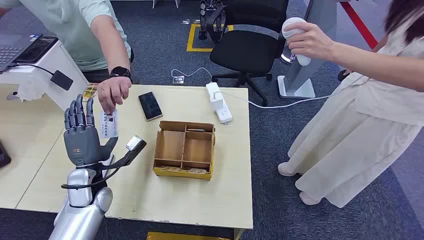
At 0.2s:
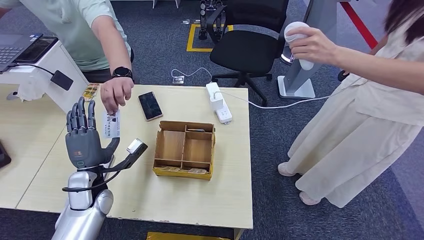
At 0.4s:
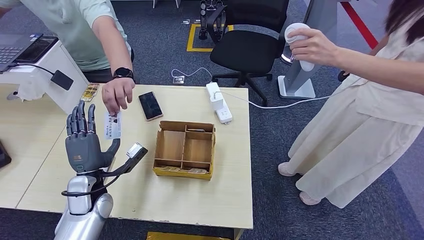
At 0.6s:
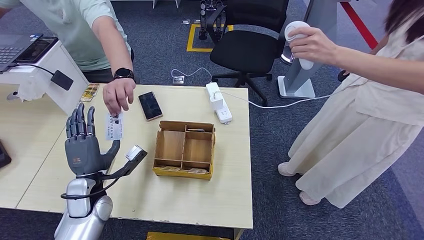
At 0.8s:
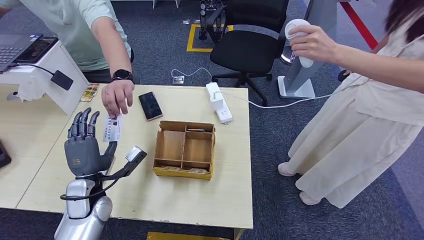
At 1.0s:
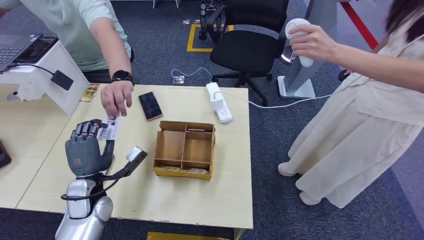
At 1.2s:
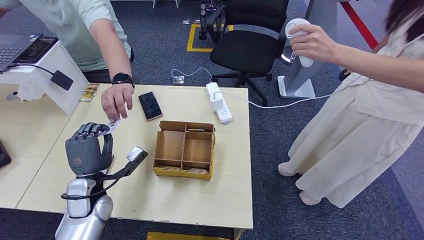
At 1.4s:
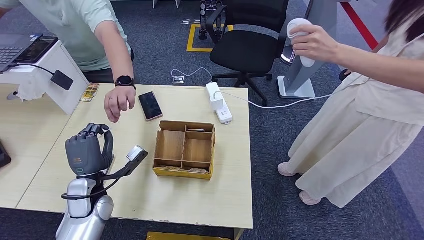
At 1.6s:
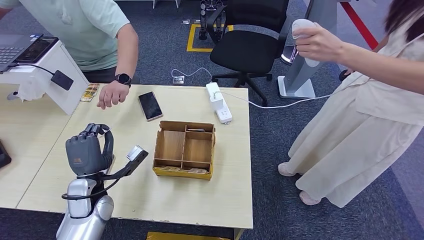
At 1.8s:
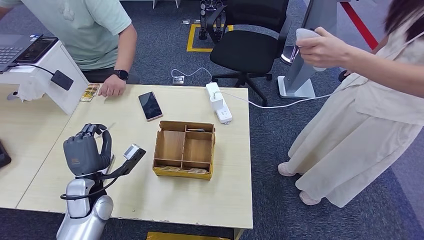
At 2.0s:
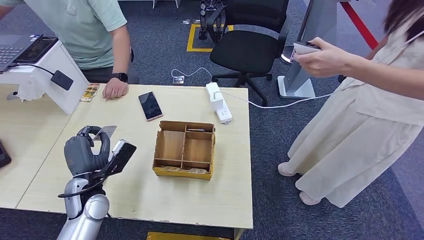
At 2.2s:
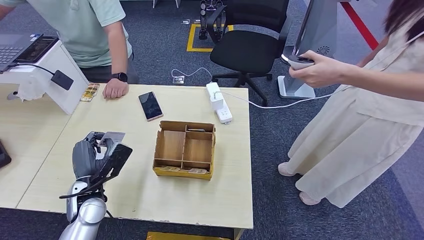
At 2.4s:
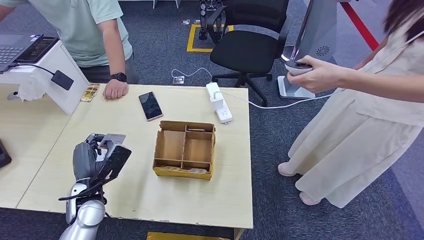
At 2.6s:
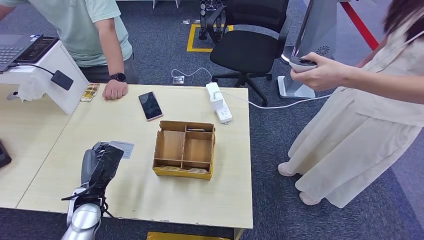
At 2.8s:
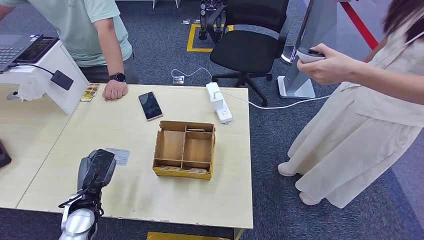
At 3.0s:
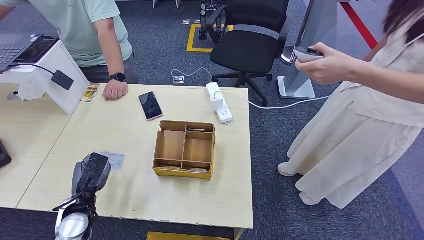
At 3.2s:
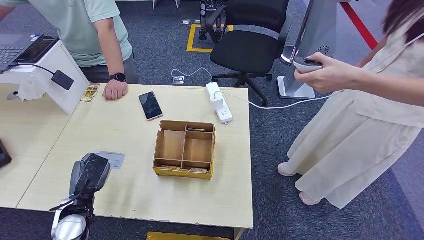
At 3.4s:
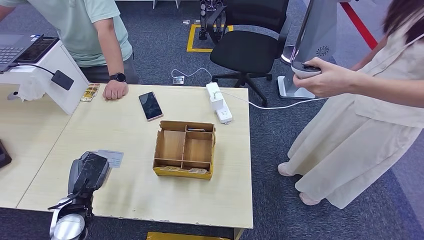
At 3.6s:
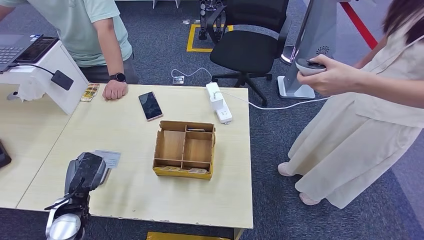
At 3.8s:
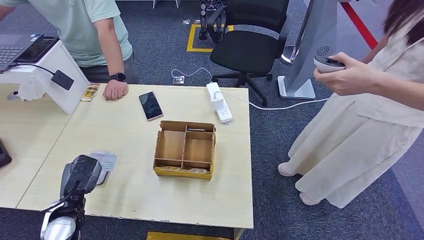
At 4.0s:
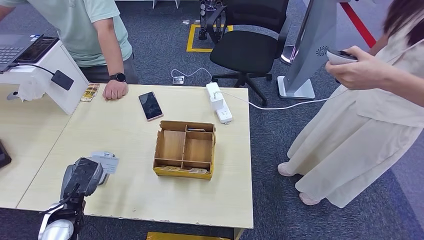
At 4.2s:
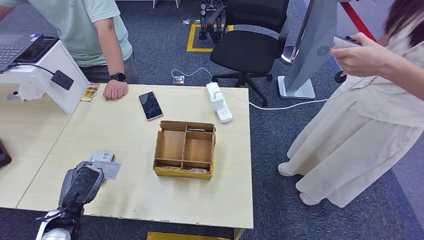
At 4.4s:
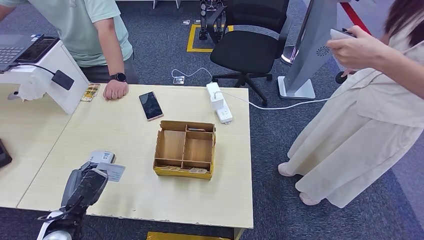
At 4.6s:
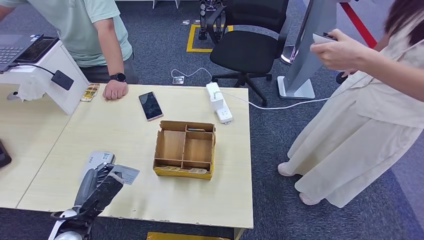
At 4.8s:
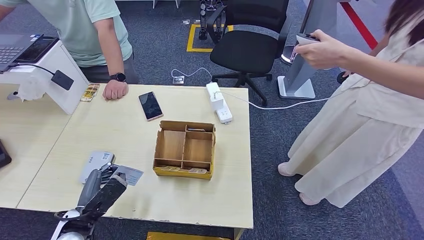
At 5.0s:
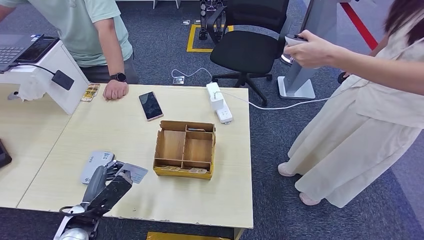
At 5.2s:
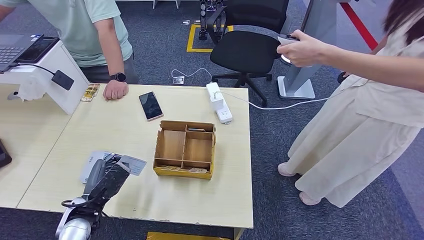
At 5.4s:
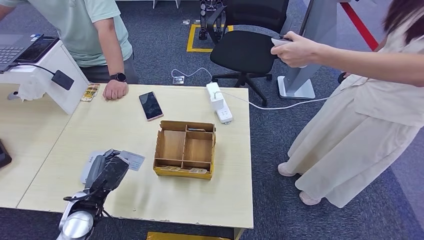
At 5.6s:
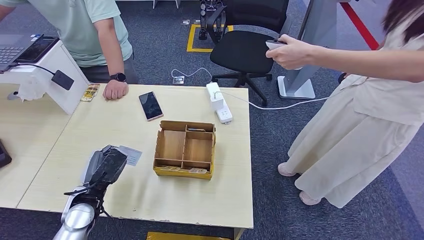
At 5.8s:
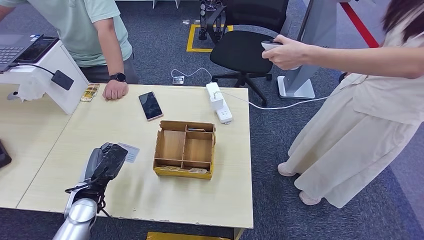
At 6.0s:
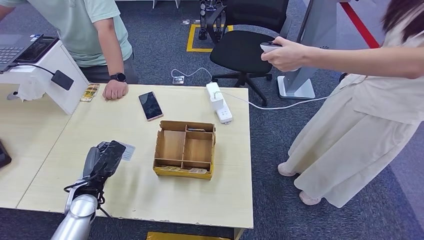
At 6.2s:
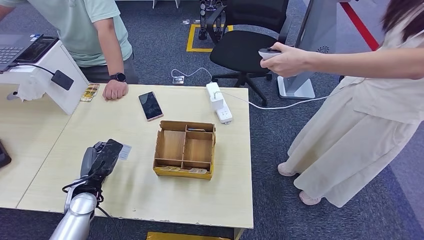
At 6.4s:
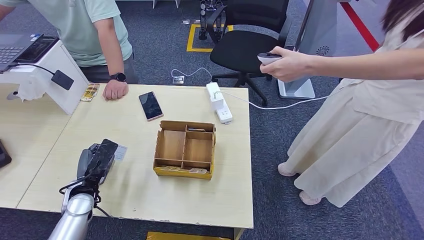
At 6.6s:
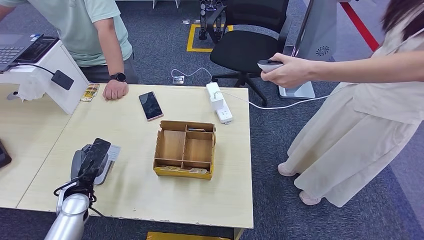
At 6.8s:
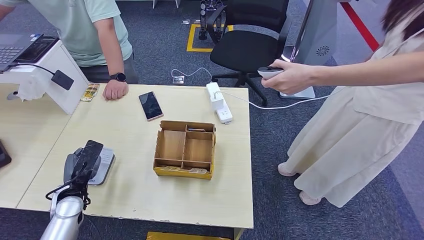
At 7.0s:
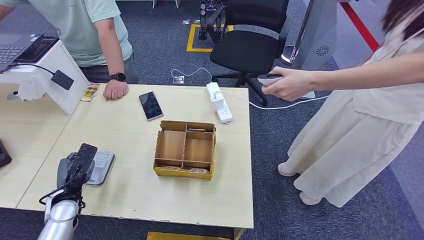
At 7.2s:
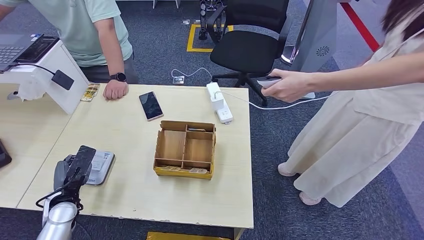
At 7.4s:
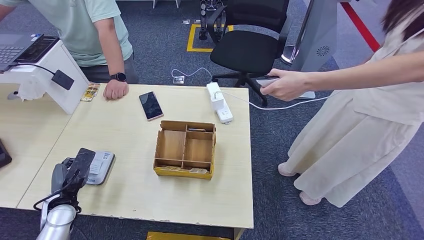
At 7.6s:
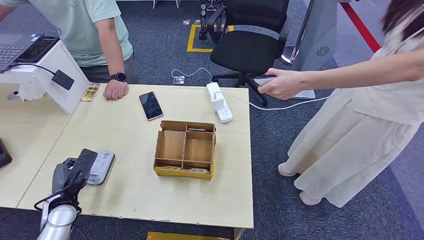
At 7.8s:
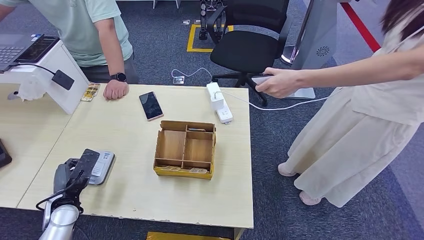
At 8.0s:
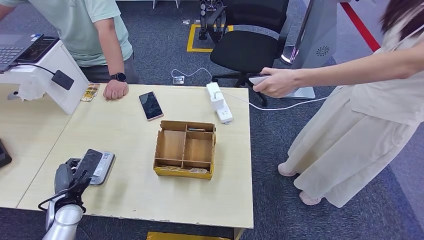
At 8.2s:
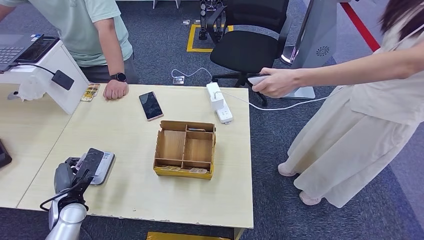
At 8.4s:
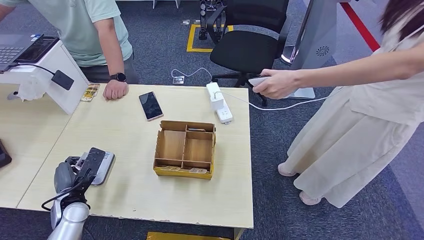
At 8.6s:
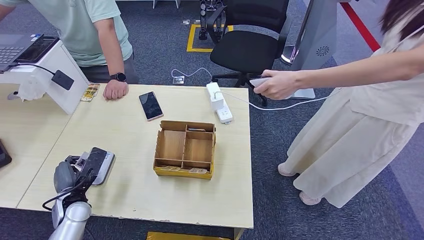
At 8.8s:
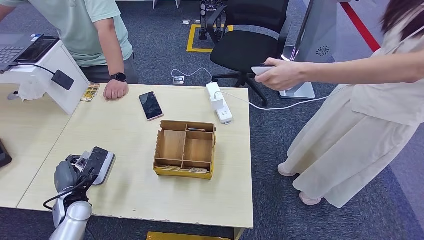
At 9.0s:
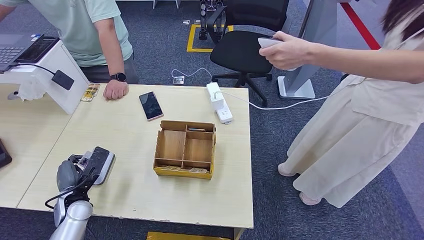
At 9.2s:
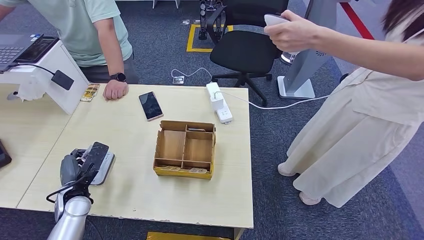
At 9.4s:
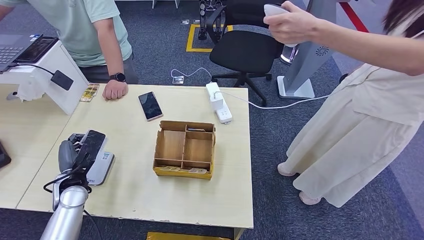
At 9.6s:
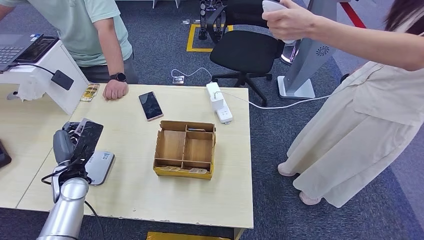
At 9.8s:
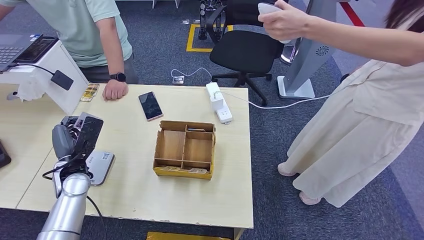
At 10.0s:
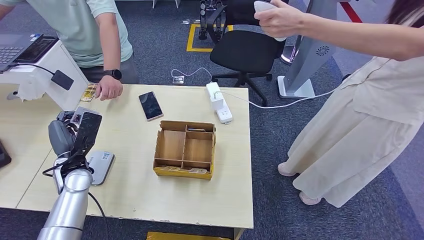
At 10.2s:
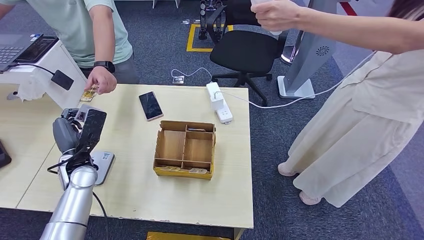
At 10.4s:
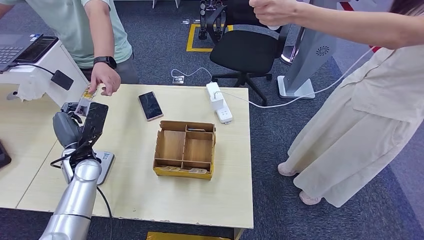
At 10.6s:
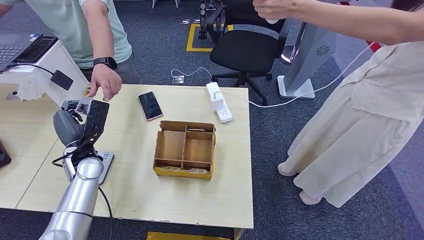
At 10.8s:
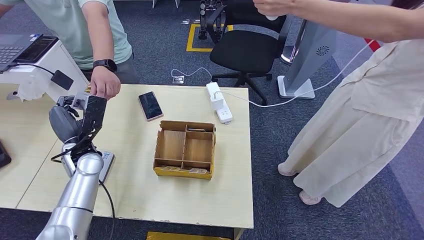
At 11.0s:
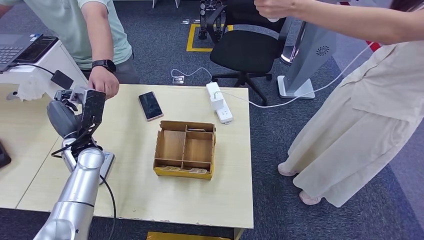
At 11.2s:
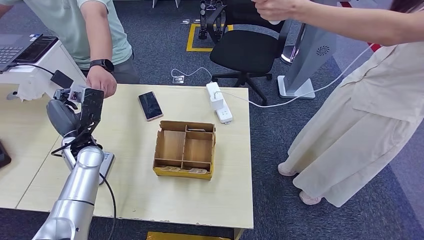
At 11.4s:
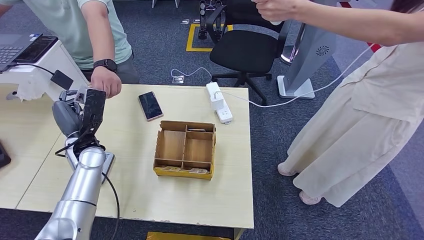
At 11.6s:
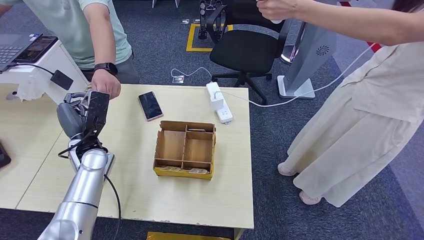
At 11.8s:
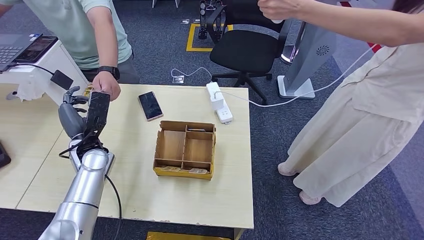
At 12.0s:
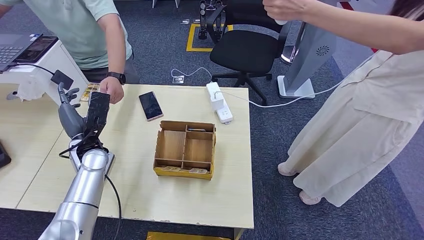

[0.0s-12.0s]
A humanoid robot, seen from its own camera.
Step, 0.0s to 1.6s: Take the ID card from the person's hand.
Step, 1.8s to 8.8s: Place the ID card on the card reader.
Step, 9.0s to 12.0s: Hand the ID card to the person.
1.6s to 3.0s: The left hand moves some 5 cm.
3.0s to 4.4s: The hands stay close to where they were, moving slightly.
4.4s to 6.0s: The left hand heads forward, covering about 10 cm.
6.0s to 7.6s: The left hand travels to the left by some 5 cm.
7.6s to 9.0s: The hands stay close to where they were, moving slightly.
9.0s to 10.4s: The left hand goes approximately 15 cm upward and forward.
10.4s to 12.0s: The hands stay close to where they were, moving slightly.

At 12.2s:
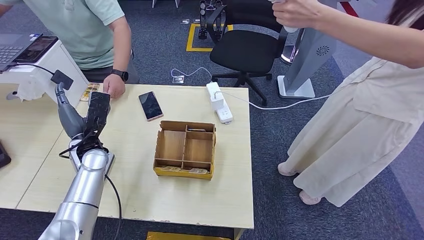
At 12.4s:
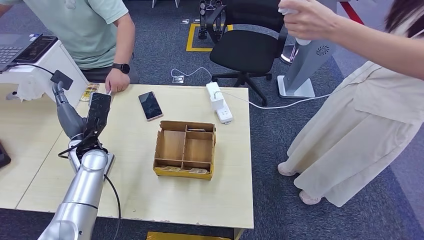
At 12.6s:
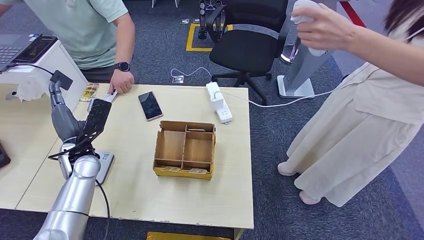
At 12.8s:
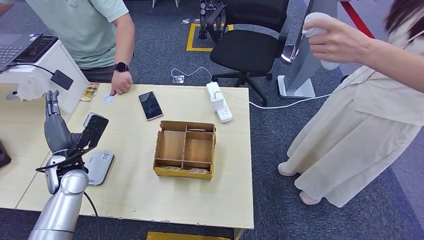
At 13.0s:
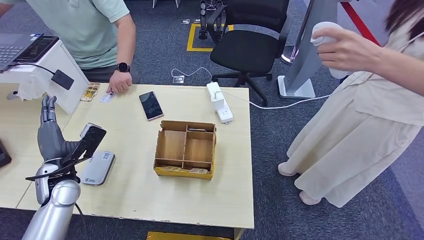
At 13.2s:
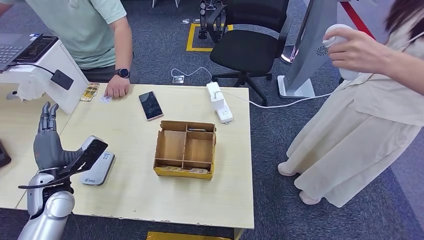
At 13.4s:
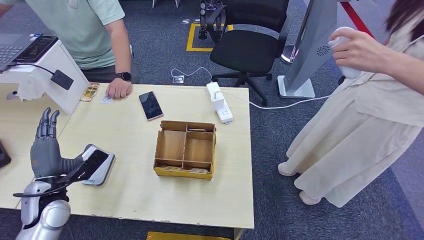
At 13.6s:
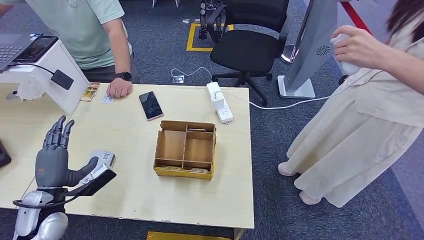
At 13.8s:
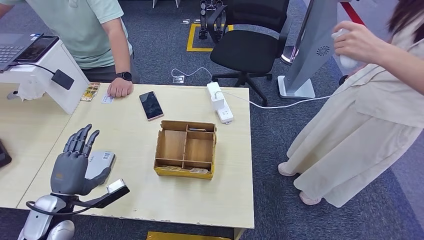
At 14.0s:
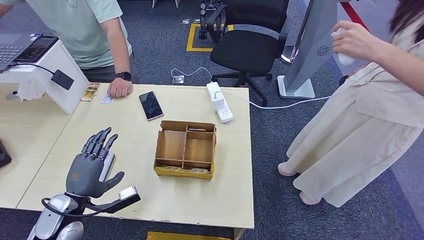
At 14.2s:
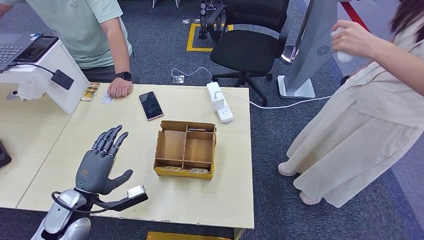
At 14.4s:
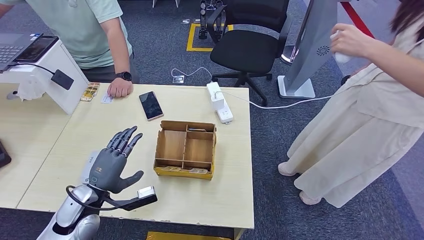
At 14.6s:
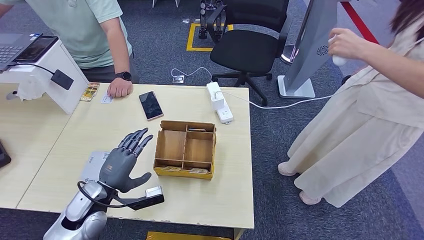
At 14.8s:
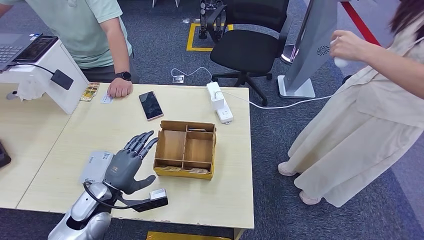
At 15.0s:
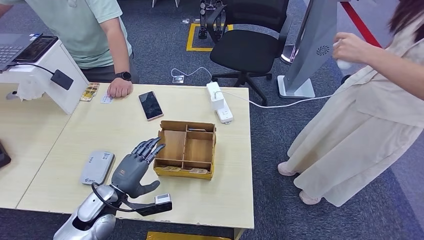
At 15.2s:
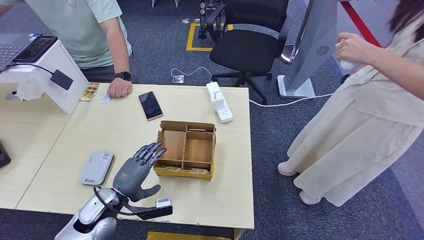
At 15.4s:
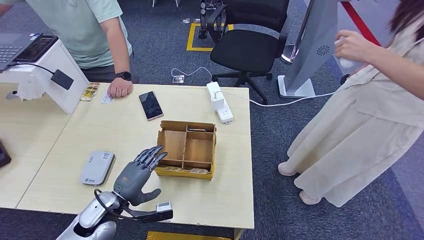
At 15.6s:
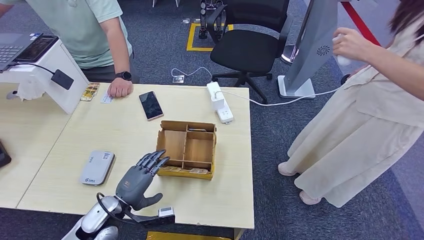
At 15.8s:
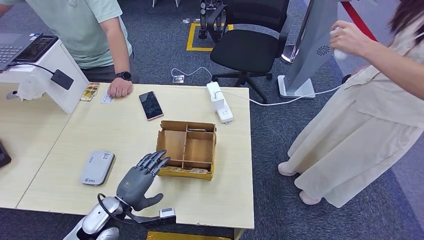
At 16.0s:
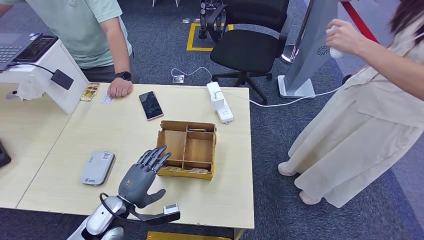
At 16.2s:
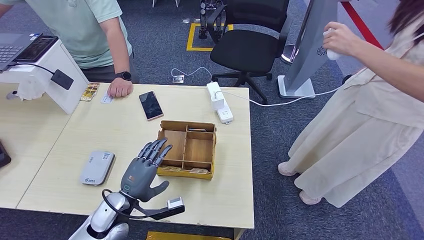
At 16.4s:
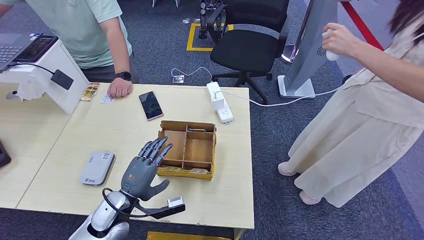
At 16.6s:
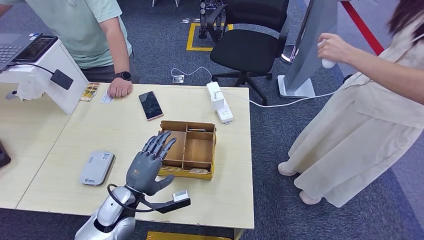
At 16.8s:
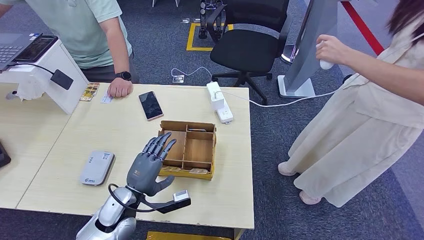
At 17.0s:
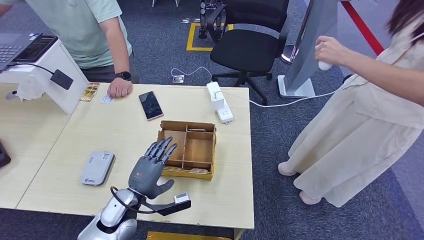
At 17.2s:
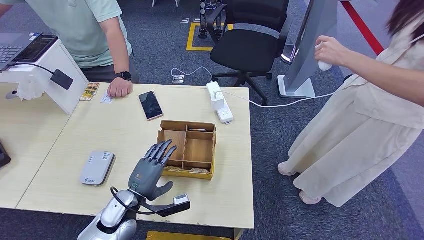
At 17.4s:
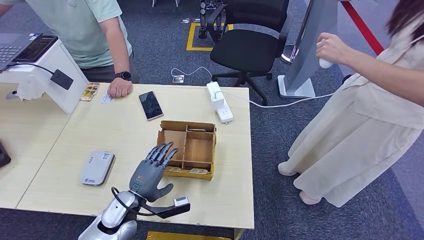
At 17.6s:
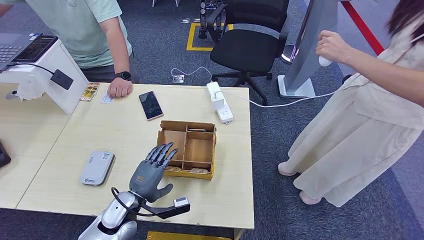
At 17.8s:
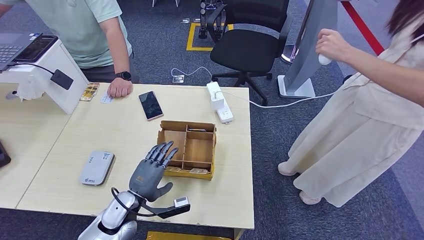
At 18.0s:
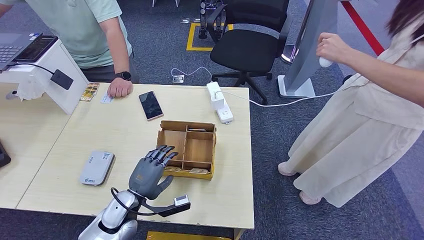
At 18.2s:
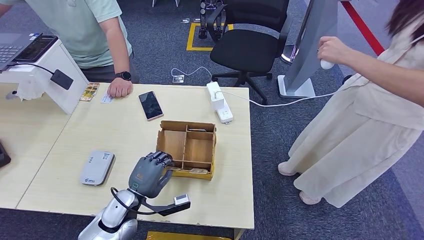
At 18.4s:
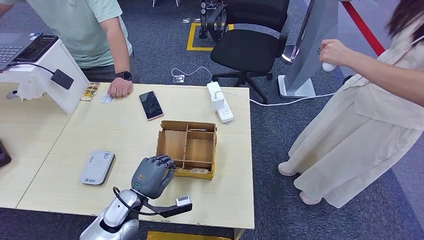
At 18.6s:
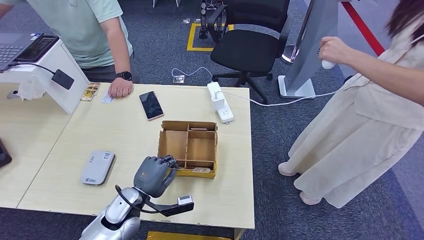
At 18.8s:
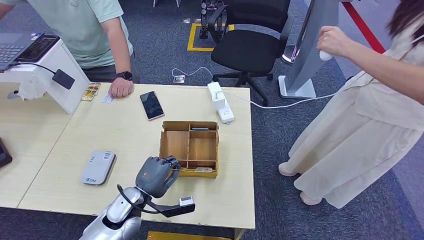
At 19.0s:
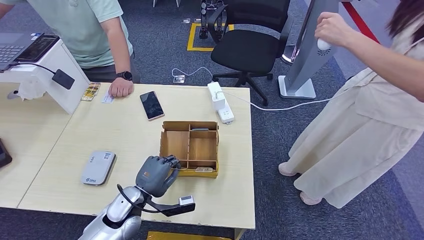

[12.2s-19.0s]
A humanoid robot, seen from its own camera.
12.2s to 13.6s: The left hand shifts roughly 15 cm backward and to the left.
13.6s to 15.0s: The left hand goes approximately 10 cm to the right.
15.0s to 17.6s: There are only small adjustments of the hands.
17.6s to 19.0s: The hands make only small movements.
